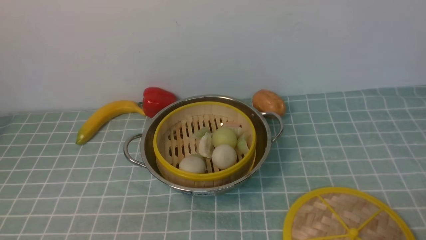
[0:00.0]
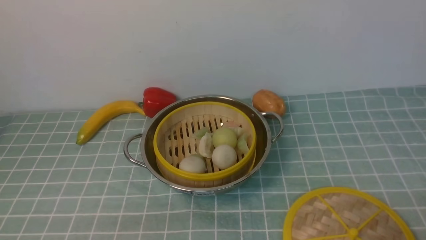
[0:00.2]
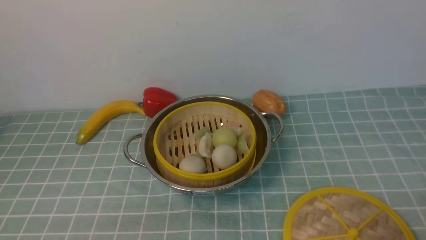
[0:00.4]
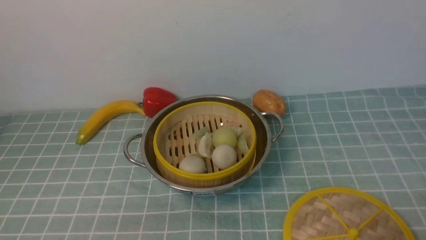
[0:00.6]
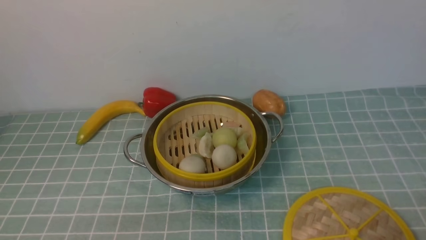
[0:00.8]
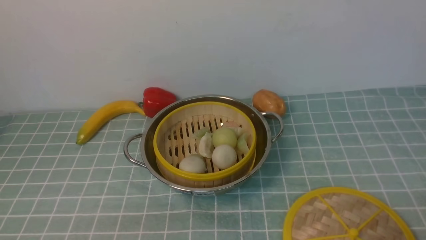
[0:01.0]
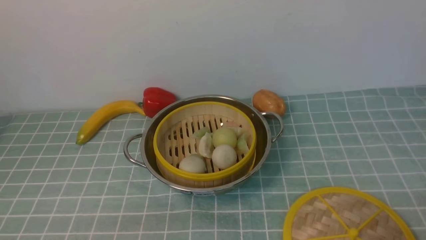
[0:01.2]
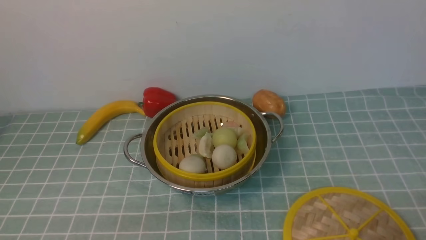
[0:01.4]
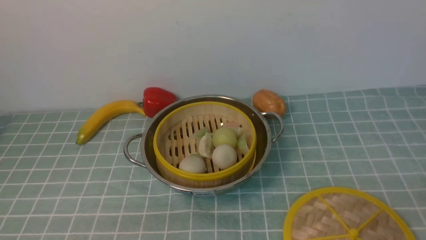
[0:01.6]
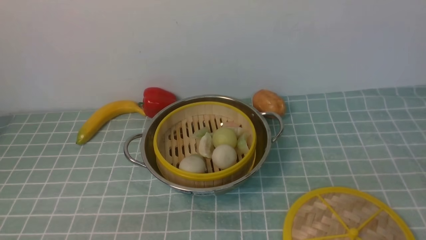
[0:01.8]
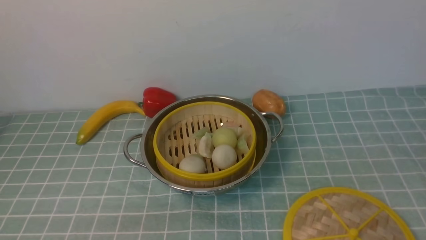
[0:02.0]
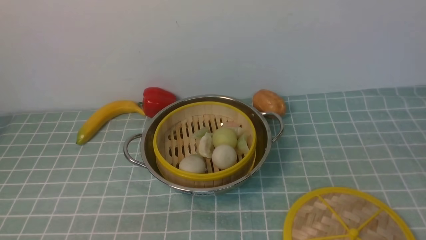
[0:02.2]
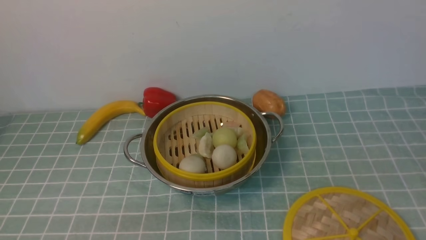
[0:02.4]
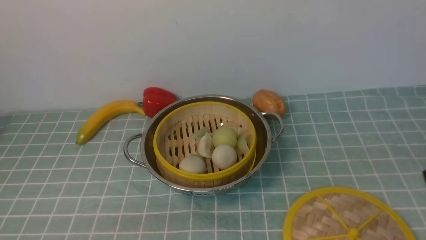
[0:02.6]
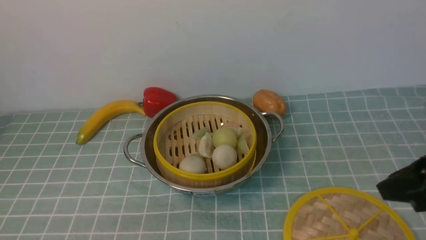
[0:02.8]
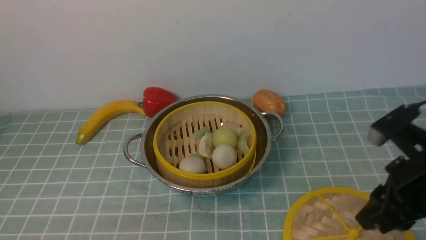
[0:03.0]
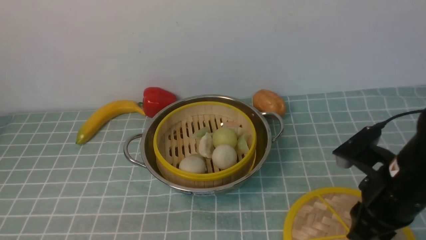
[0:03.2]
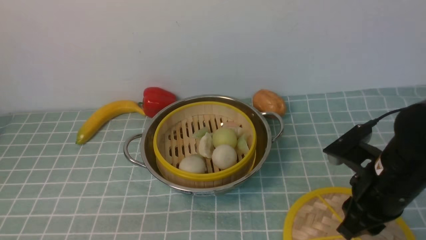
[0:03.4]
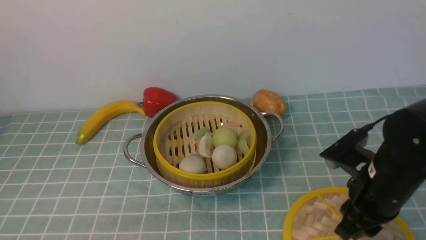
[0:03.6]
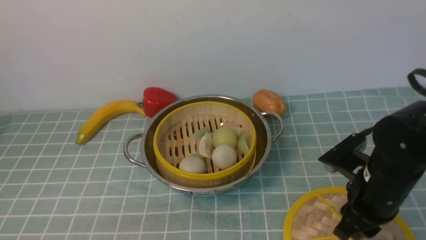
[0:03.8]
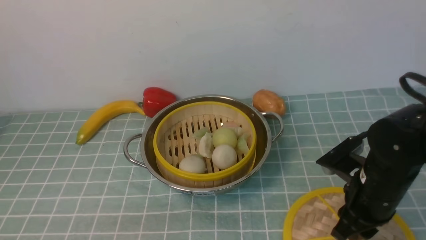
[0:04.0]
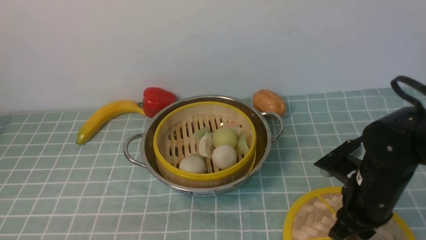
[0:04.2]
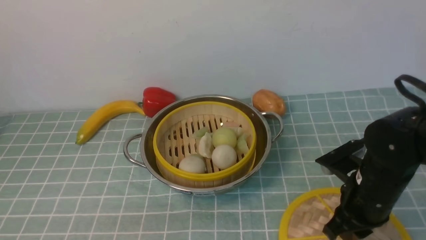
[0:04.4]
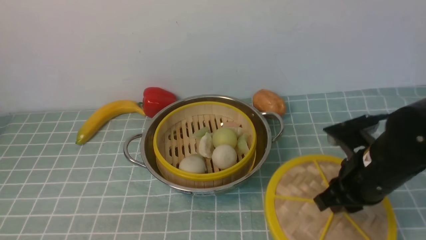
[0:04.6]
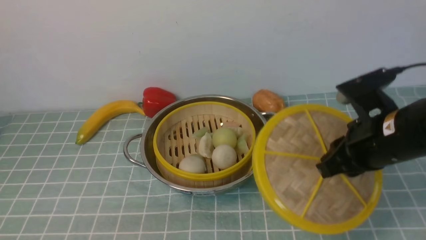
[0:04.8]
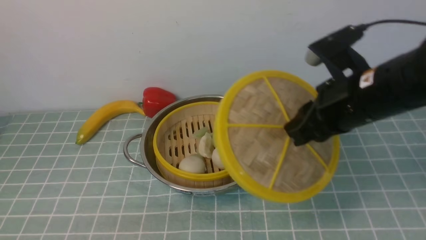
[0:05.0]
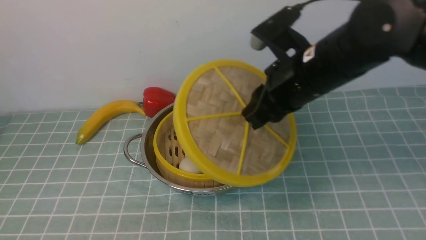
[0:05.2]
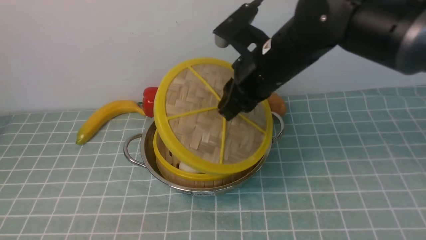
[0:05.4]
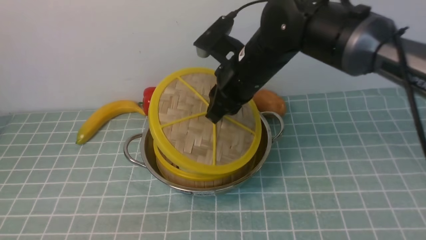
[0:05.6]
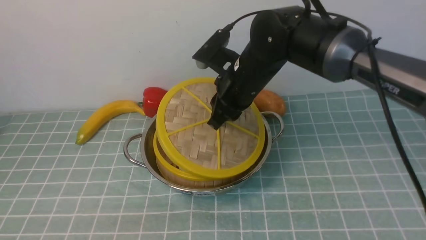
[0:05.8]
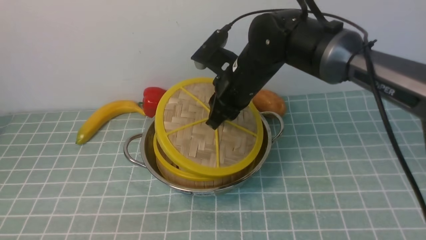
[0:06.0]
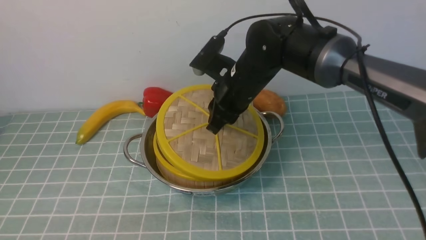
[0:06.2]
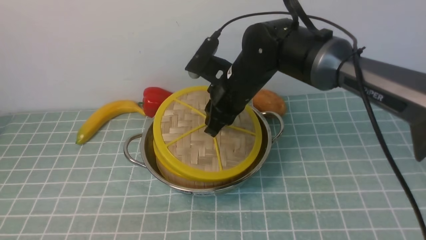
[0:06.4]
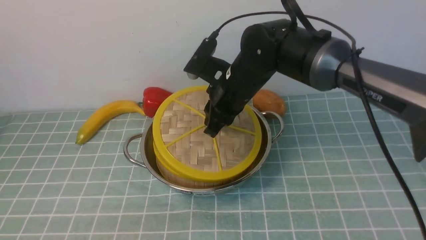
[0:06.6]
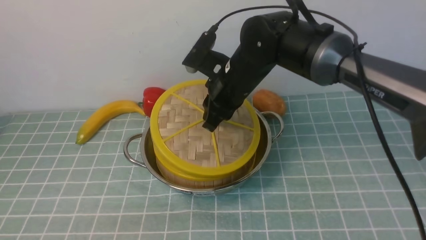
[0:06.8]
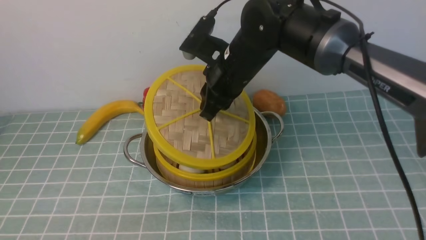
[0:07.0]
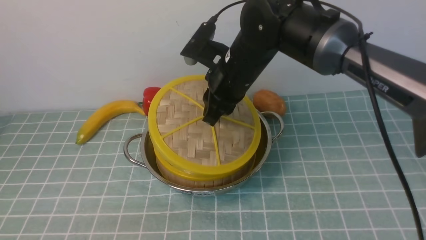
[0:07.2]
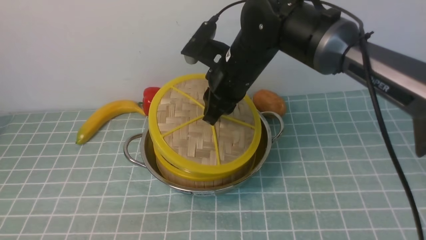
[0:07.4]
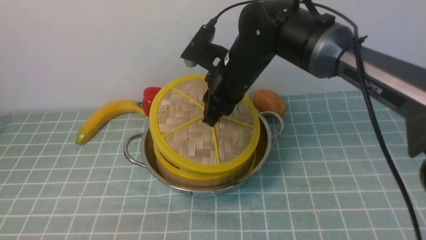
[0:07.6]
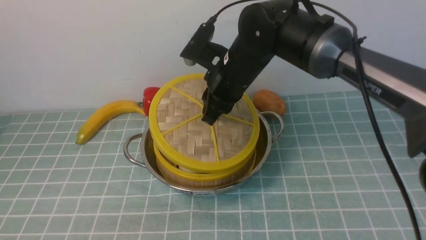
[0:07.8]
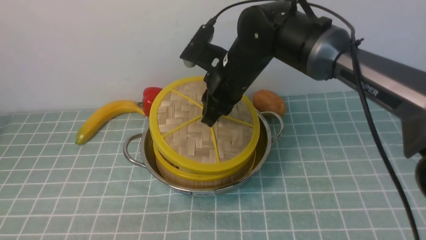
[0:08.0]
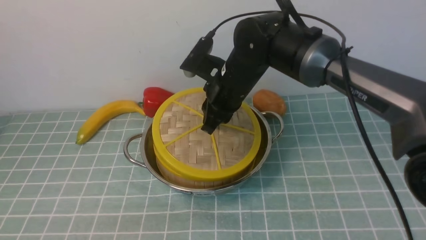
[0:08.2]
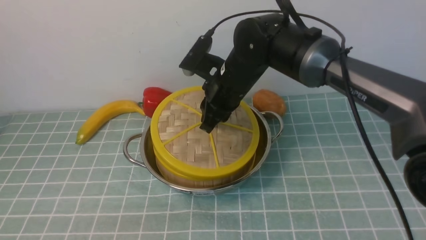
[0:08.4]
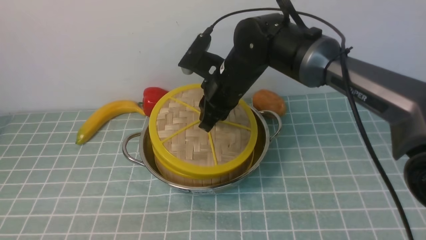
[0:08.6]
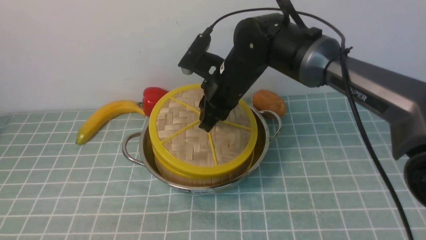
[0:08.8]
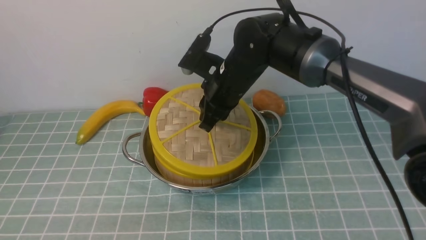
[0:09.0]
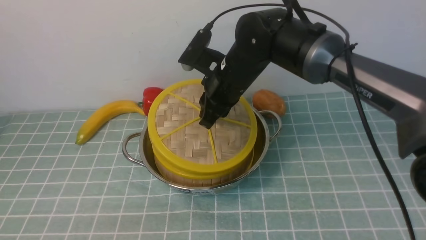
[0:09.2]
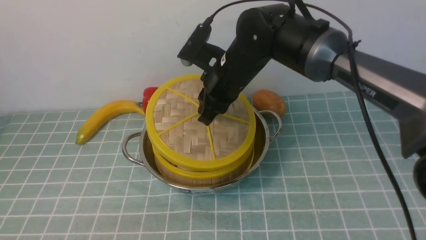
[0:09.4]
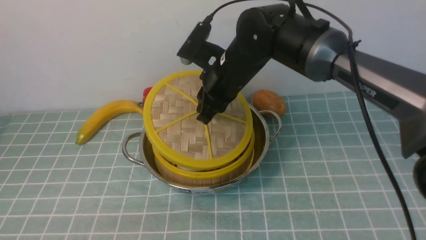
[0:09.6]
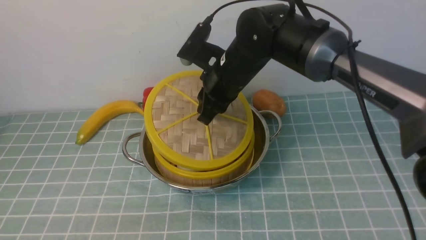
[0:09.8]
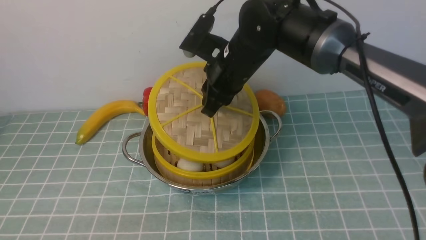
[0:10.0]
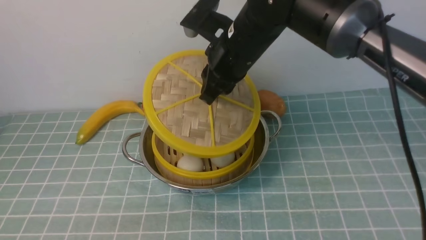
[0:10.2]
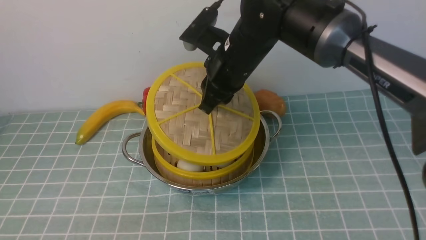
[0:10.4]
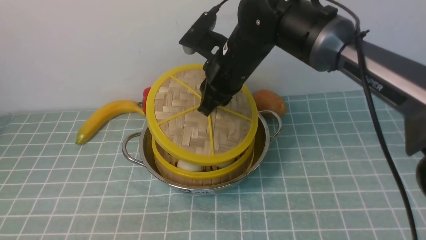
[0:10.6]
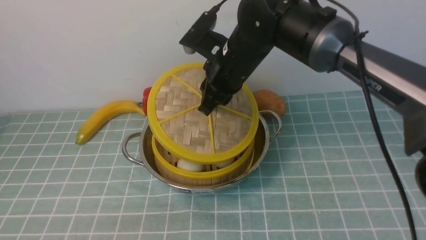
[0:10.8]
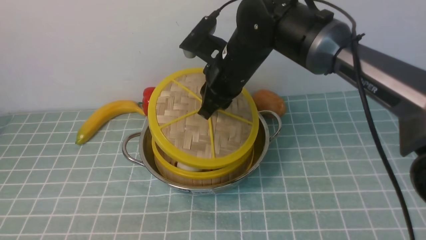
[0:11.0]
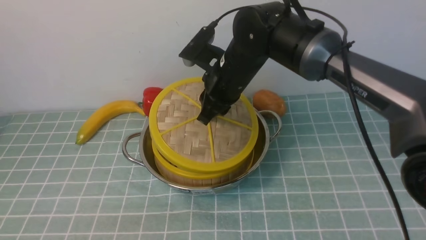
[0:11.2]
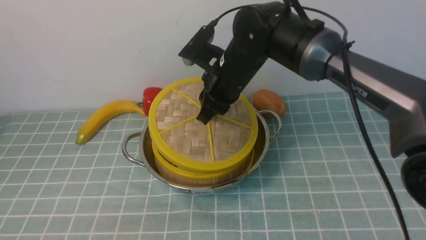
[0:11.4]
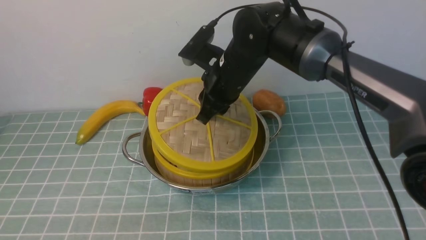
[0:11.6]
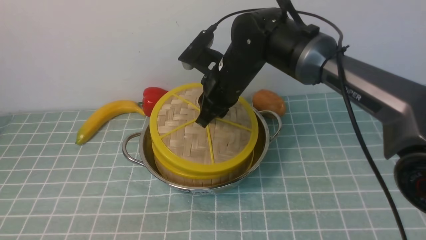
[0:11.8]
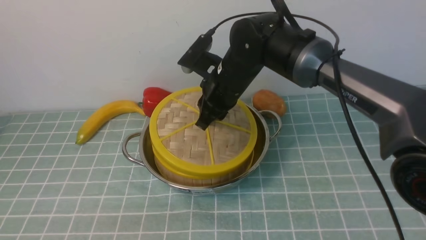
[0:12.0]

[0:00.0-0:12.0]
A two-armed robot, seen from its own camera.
Task of the whole recording: place the steamer in the pot on the blue tablecloth, and put the lid on the steamer.
Step, 0:00.0 to 0:04.8: use the right arm to lift the lid of the steamer.
0:01.6 to 0:03.0: The right gripper goes some 15 cm forward and to the left.
0:03.0 to 0:04.4: The right gripper shifts about 5 cm downward.
0:04.4 to 0:06.0: The right gripper moves to the left, forward and upward, some 20 cm.
0:06.0 to 0:10.4: The grippers move only a little.
0:10.4 to 0:12.0: The right gripper moves roughly 5 cm.

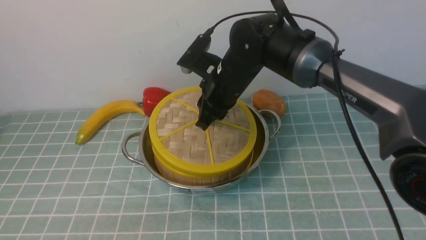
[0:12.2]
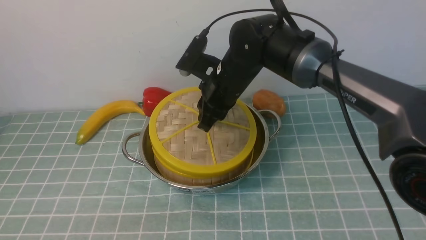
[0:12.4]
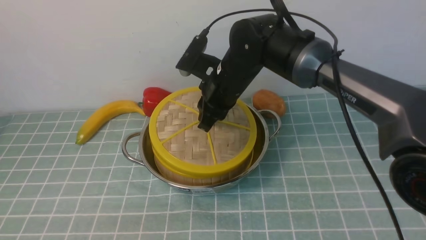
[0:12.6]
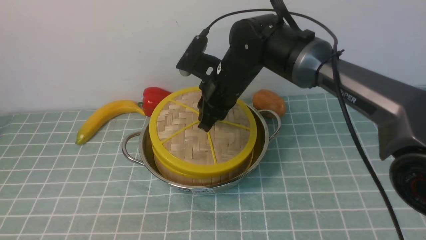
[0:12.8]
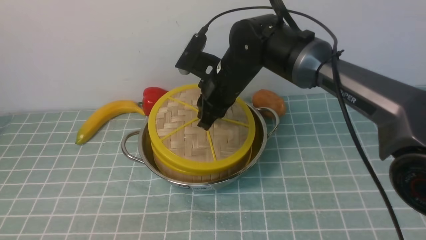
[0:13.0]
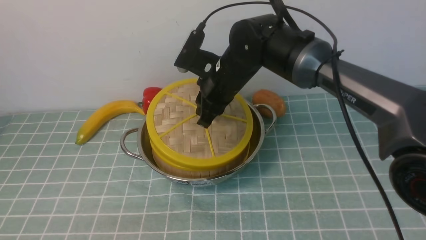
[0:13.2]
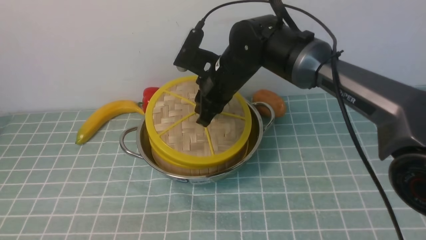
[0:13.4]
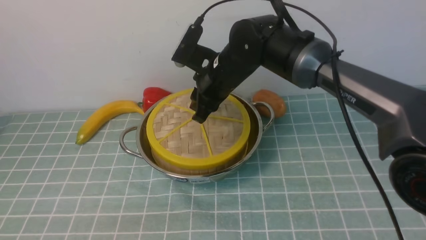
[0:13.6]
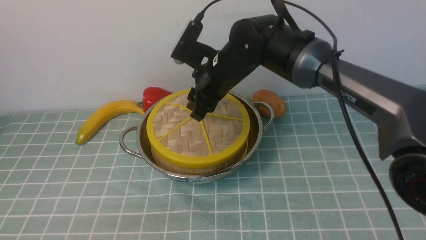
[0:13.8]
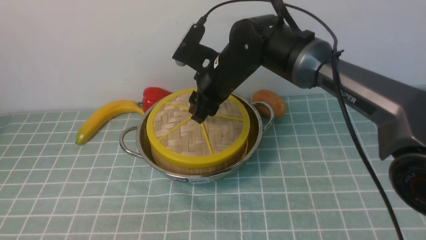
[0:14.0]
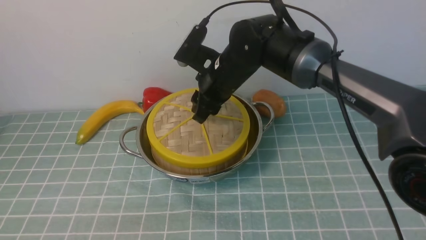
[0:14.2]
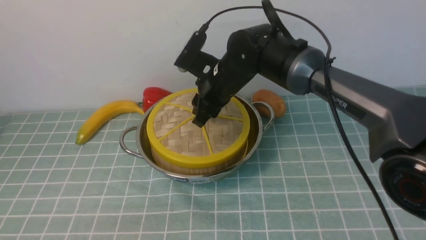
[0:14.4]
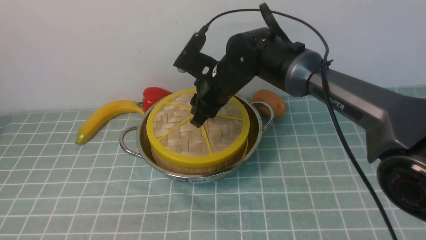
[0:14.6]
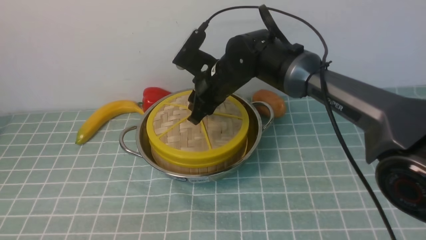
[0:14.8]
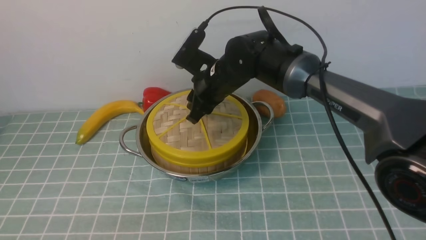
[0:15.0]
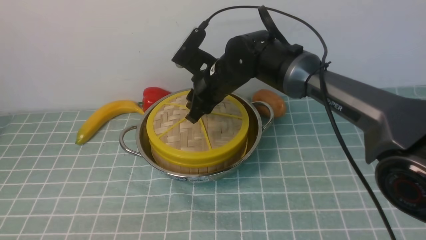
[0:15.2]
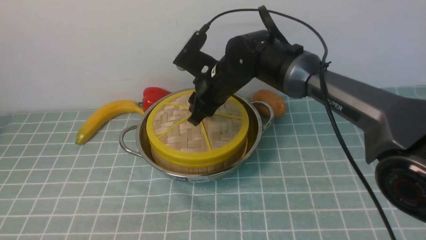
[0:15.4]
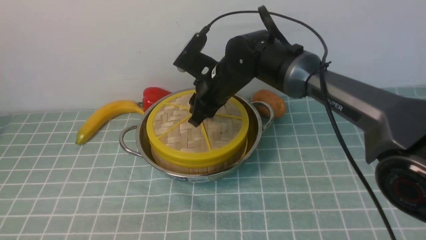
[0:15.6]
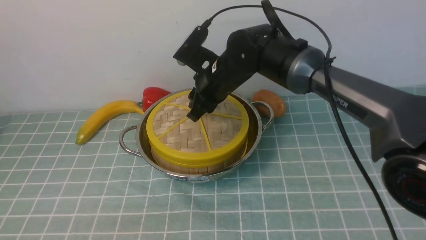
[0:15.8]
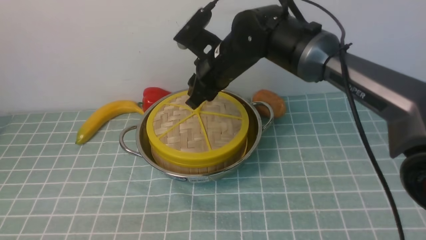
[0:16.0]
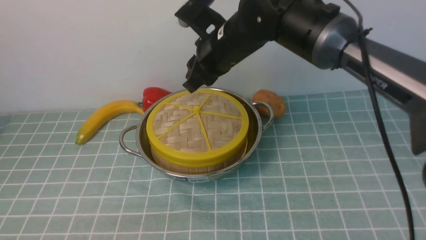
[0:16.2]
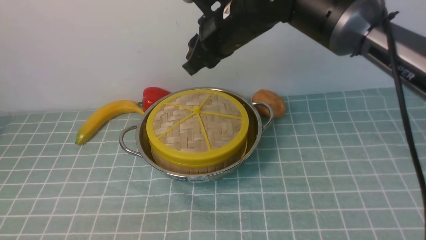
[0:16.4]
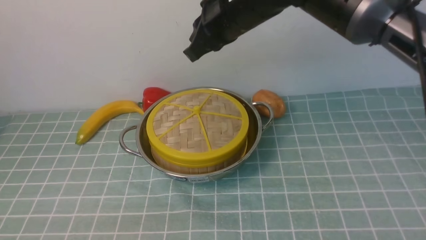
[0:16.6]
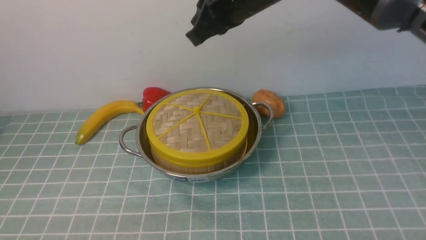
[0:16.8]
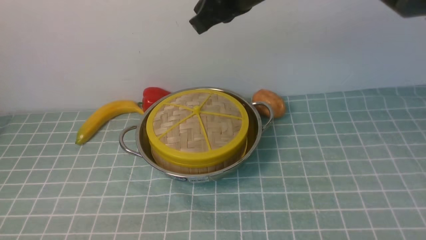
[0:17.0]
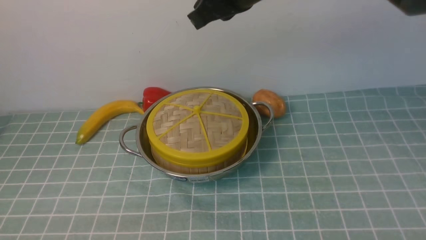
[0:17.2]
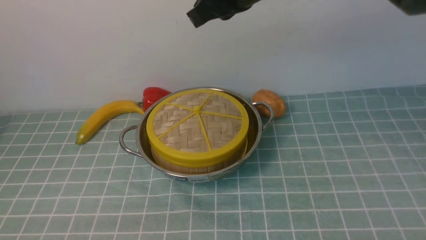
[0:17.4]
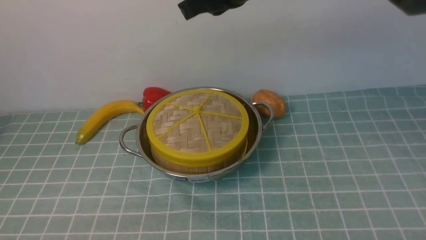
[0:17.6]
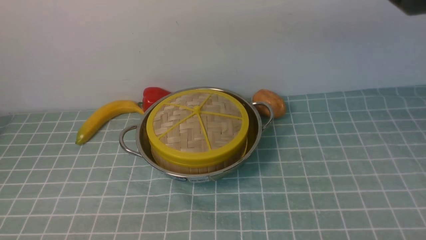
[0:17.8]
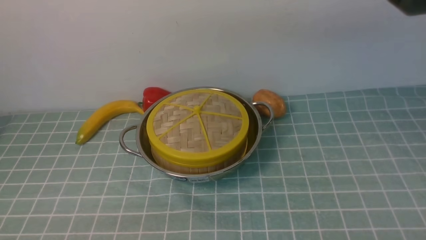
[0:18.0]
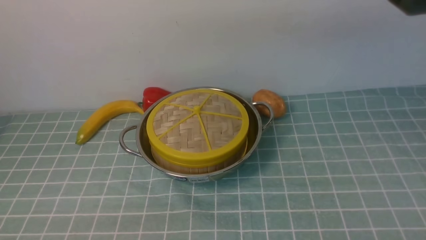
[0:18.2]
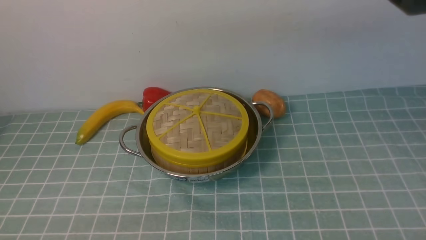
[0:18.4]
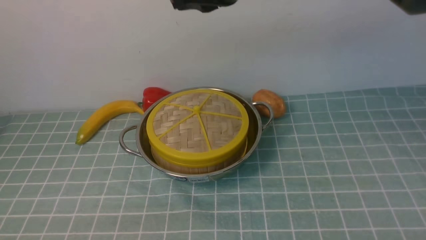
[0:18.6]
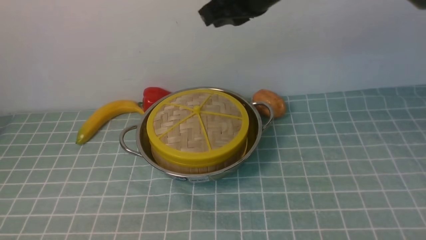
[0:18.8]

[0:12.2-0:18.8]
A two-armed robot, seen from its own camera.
Task of the whole recording: place the steamer in the pot on the blue tablecloth, and put the lid on the steamer.
Step, 0:12.2 to 0:16.2: use the right arm to place the steamer lid on the steamer.
0:12.2 to 0:13.8: The right gripper opens up.
0:13.8 to 0:15.4: The grippers make only small movements.
0:15.4 to 0:17.2: The right gripper travels upward by some 20 cm, and closes up.
